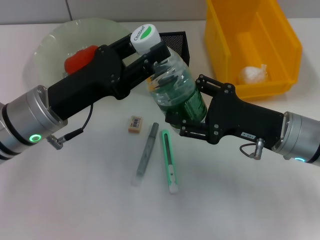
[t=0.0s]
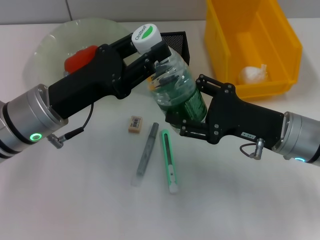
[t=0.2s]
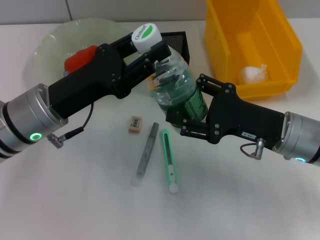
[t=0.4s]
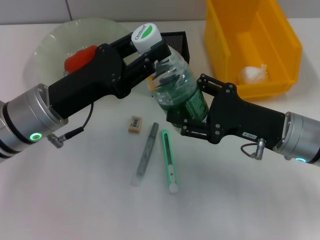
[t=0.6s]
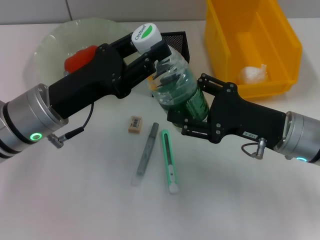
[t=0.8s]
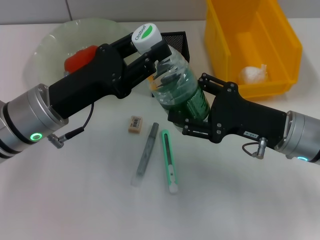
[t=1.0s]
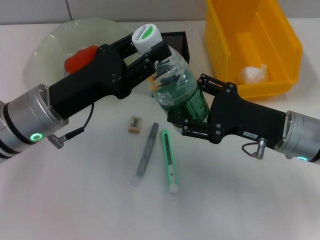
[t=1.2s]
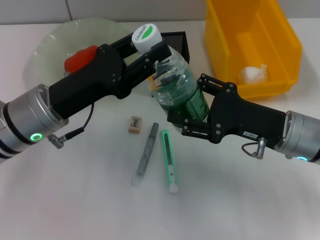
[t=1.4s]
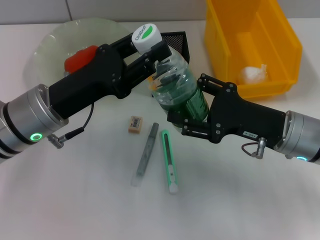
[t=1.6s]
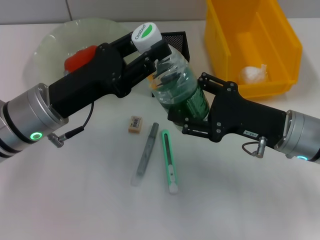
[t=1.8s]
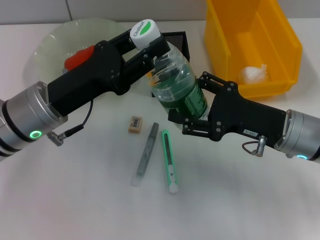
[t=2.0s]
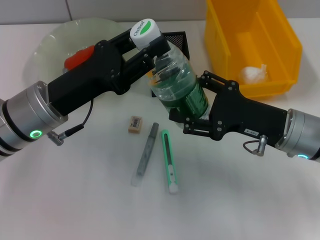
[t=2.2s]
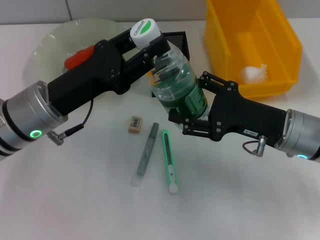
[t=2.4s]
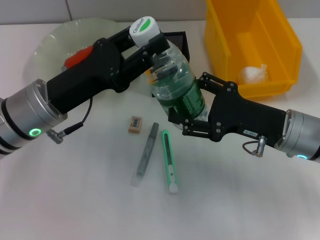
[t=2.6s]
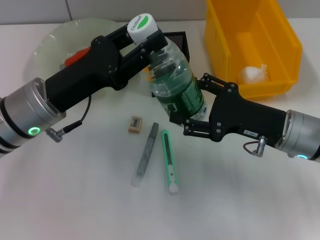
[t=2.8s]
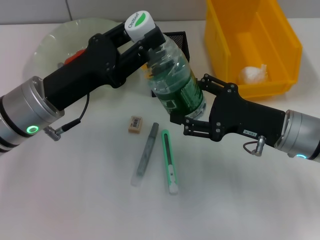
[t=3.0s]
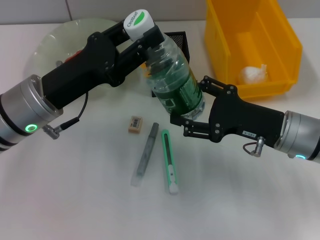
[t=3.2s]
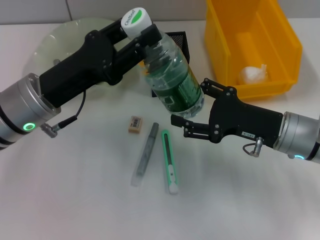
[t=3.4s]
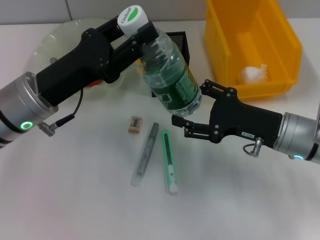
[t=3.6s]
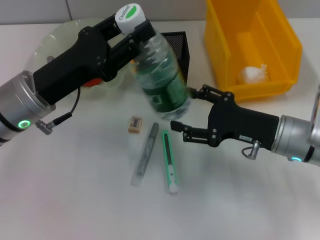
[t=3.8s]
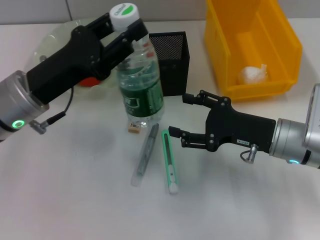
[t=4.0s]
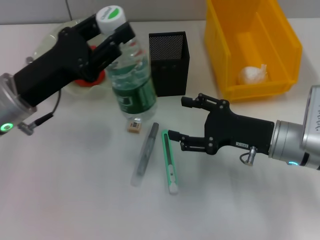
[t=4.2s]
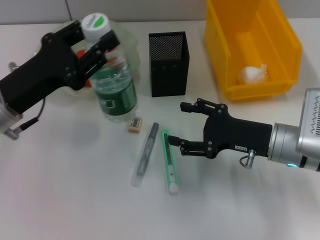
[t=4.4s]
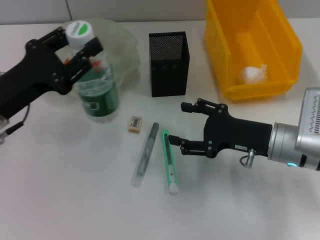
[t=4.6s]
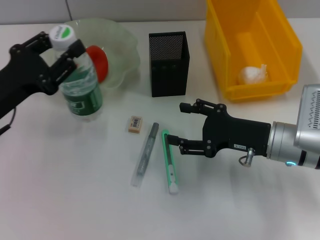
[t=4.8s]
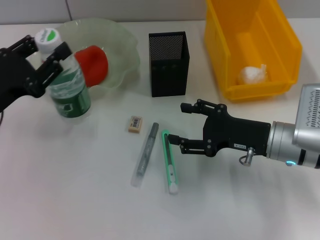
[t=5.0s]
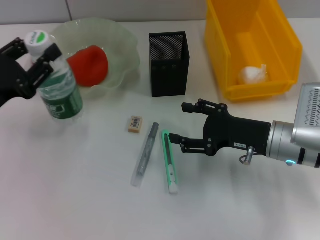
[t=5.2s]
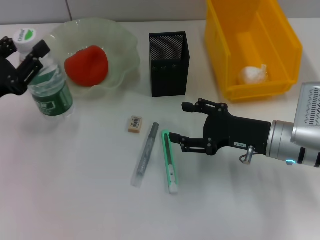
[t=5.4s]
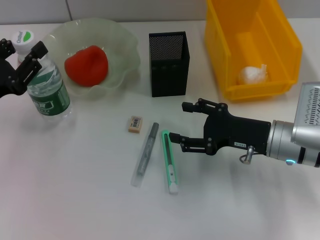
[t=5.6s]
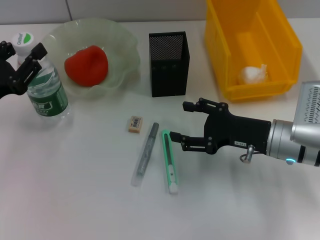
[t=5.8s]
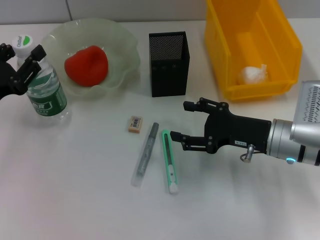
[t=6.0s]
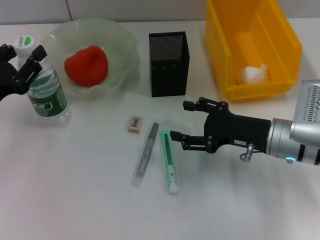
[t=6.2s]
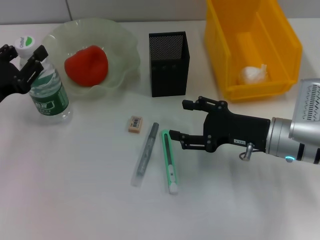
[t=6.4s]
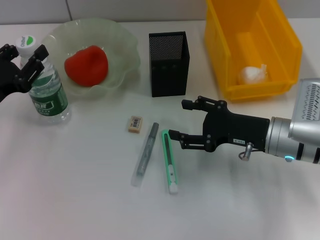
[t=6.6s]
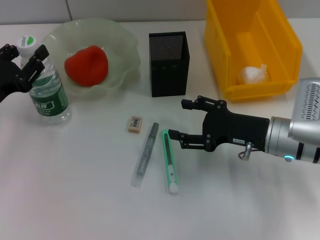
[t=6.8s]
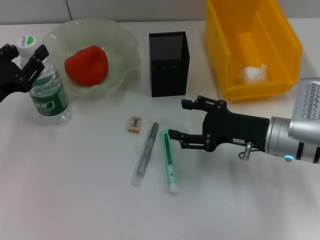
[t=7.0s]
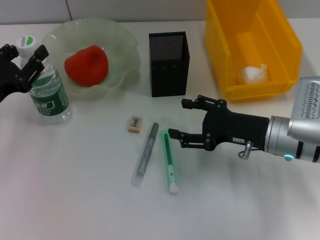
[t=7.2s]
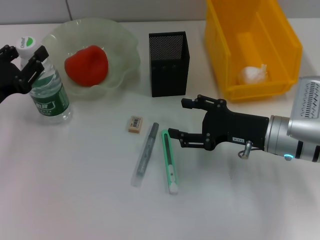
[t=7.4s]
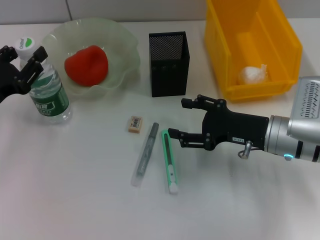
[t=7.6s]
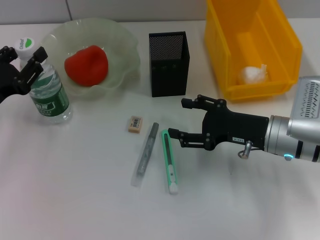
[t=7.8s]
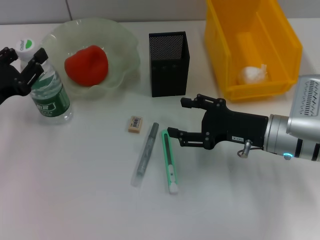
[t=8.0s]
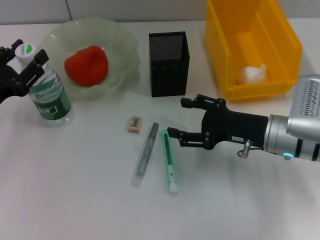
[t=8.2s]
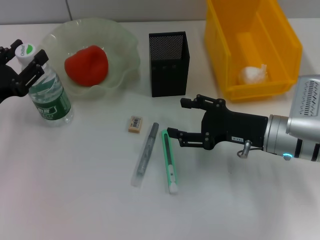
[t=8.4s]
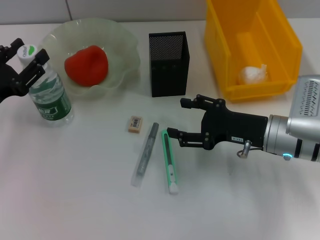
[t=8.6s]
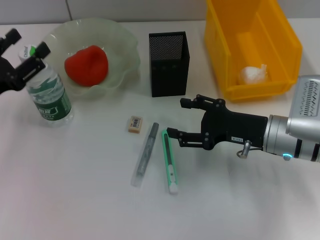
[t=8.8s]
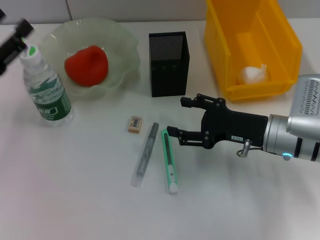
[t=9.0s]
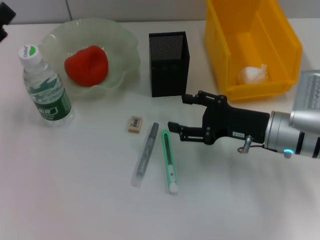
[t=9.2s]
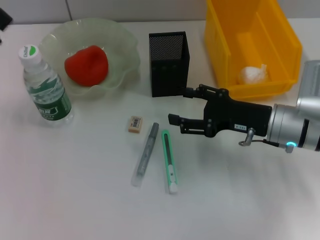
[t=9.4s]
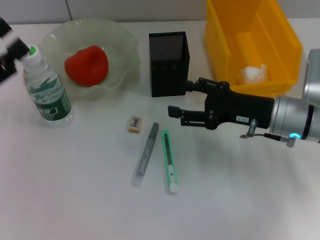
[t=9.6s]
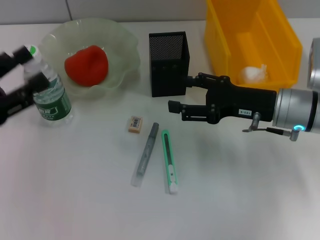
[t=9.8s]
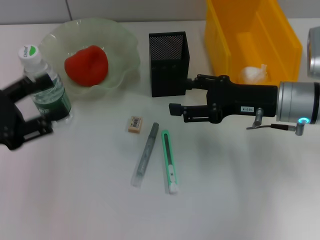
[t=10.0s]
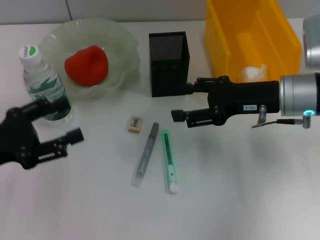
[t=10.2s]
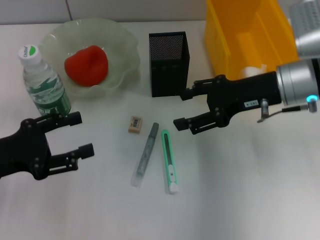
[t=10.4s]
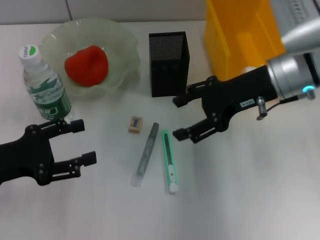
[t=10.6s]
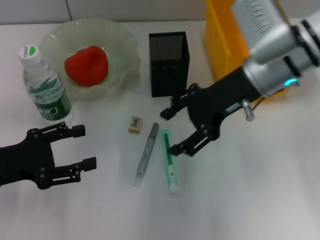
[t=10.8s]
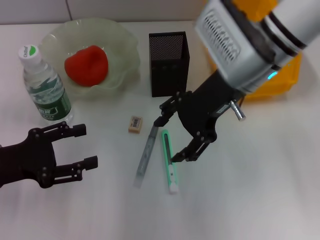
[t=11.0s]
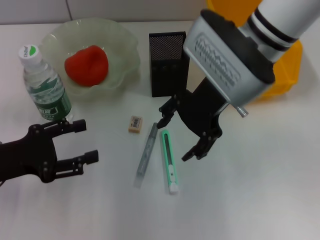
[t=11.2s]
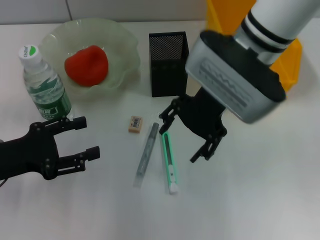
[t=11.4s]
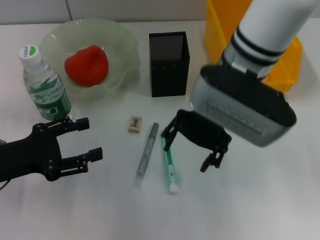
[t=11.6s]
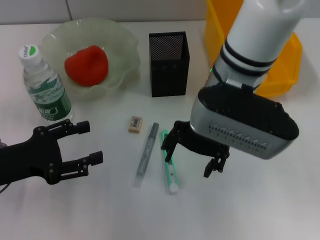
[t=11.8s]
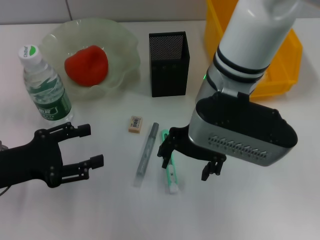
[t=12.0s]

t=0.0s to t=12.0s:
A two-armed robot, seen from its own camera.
Step, t=0.0s to t=3.2s: Pass the water bottle from the right hand to the left hand.
Step, t=3.4s to t=8.6s: Place the water bottle on the table with the left hand.
t=0.0s to t=3.0s: The two grippers keep their place.
t=3.0s to t=4.4s: The left gripper heads to the left, covering approximately 5 cm.
t=4.4s to t=6.0s: The left gripper travels to the left by roughly 5 cm.
t=6.0s to t=7.6s: Both grippers stay put.
t=7.6s to t=9.0s: The left gripper opens up.
t=9.0s to t=10.4s: The right gripper is displaced upward by approximately 10 cm.
t=10.4s to t=12.0s: The right gripper shifts approximately 15 cm to the left.

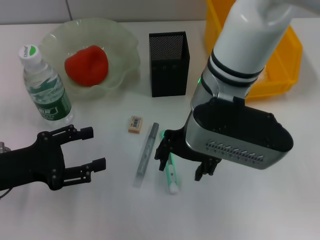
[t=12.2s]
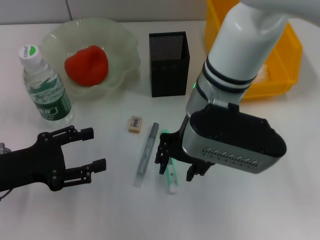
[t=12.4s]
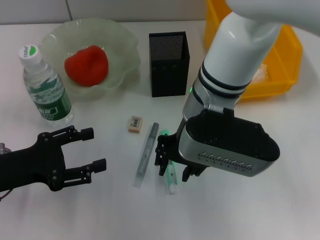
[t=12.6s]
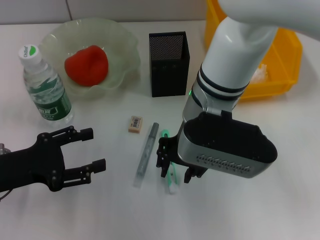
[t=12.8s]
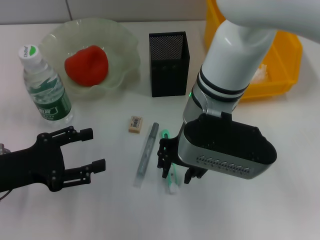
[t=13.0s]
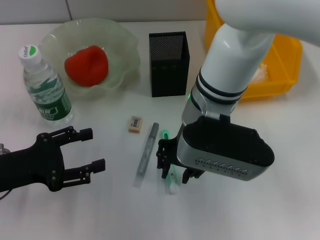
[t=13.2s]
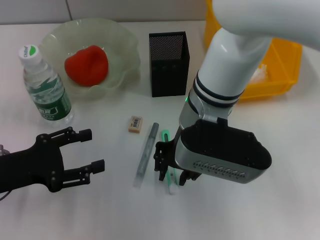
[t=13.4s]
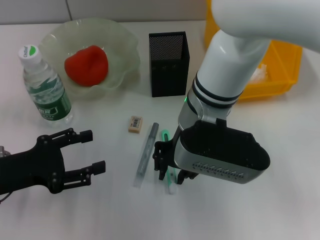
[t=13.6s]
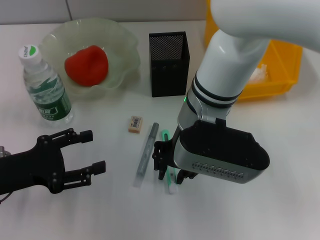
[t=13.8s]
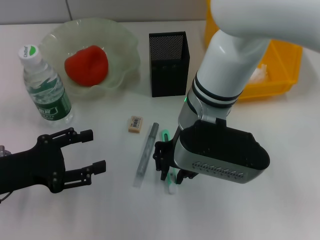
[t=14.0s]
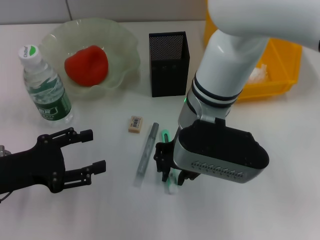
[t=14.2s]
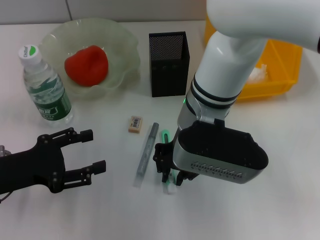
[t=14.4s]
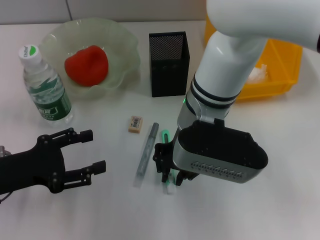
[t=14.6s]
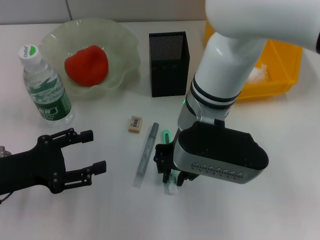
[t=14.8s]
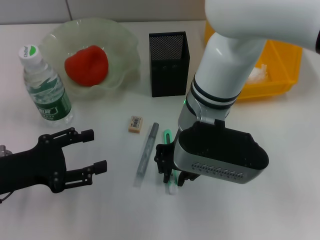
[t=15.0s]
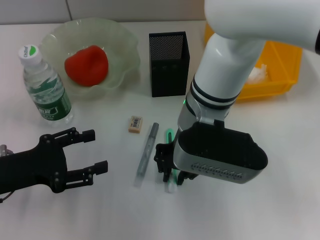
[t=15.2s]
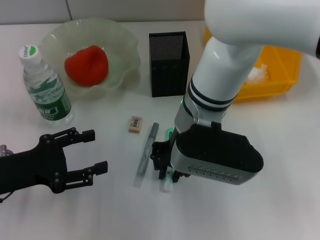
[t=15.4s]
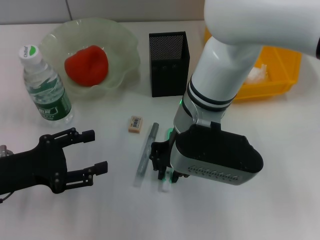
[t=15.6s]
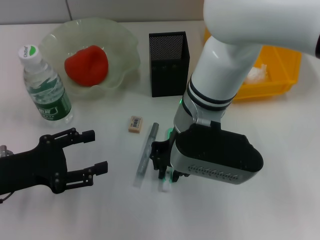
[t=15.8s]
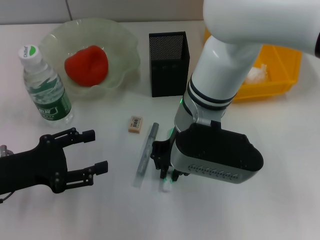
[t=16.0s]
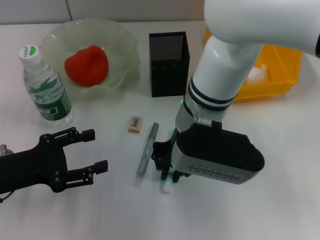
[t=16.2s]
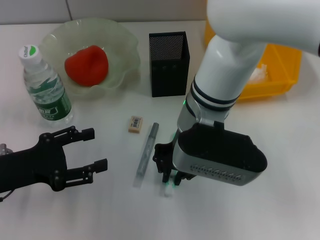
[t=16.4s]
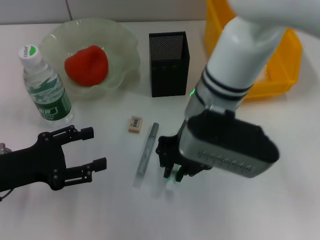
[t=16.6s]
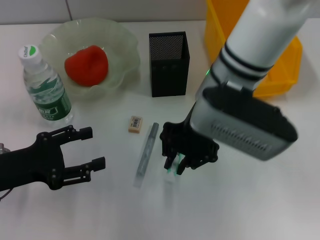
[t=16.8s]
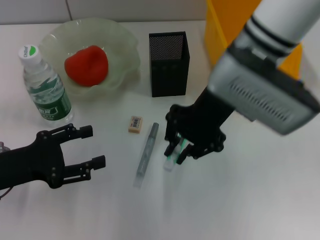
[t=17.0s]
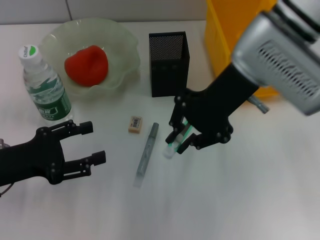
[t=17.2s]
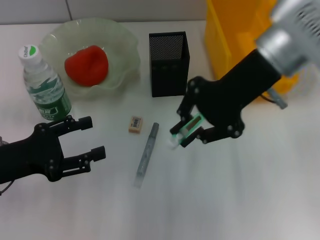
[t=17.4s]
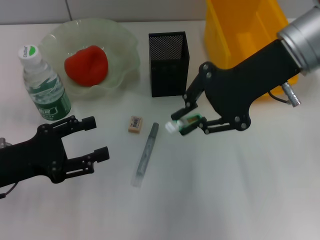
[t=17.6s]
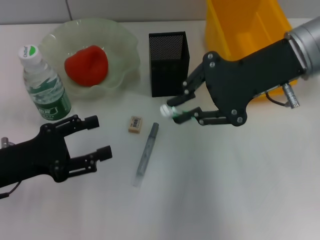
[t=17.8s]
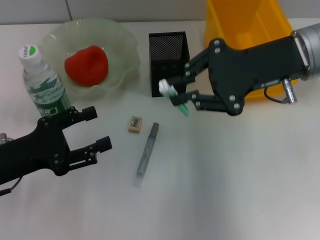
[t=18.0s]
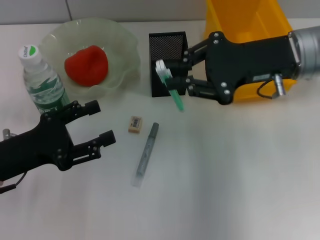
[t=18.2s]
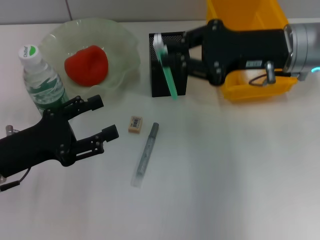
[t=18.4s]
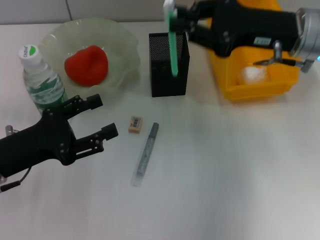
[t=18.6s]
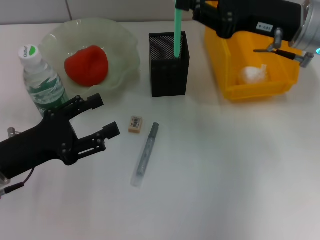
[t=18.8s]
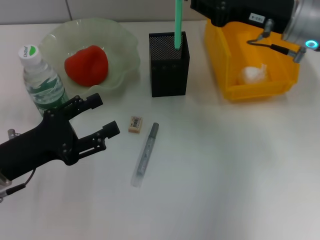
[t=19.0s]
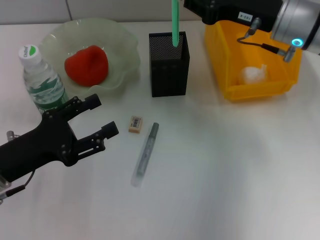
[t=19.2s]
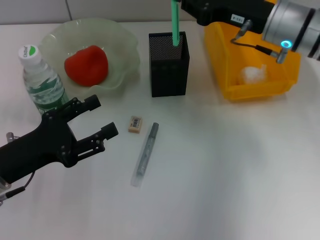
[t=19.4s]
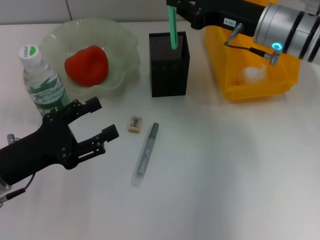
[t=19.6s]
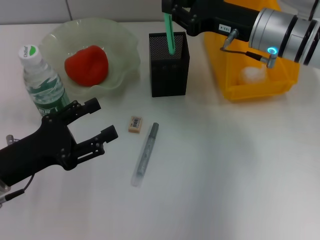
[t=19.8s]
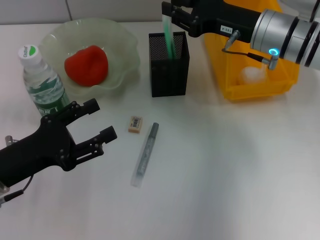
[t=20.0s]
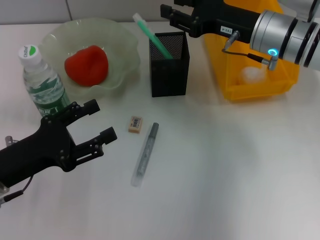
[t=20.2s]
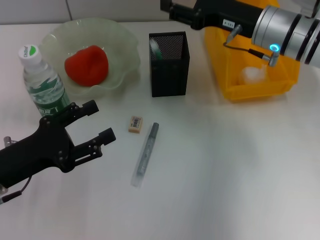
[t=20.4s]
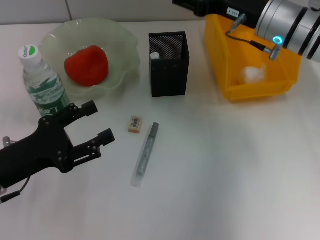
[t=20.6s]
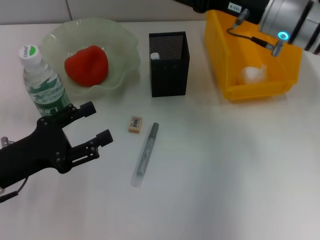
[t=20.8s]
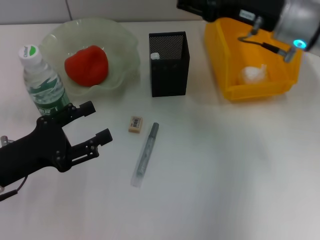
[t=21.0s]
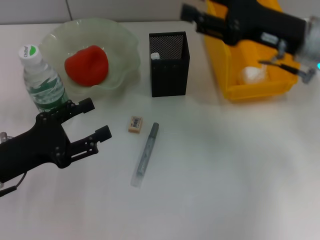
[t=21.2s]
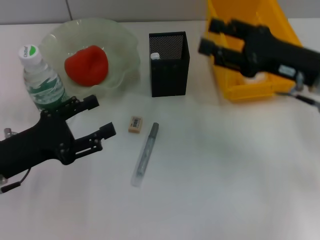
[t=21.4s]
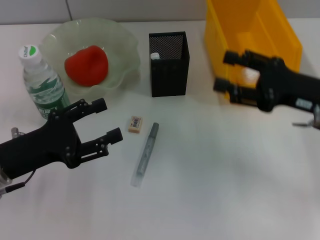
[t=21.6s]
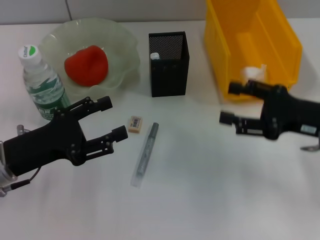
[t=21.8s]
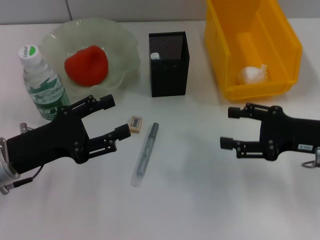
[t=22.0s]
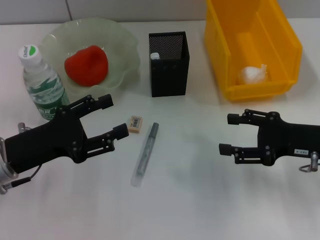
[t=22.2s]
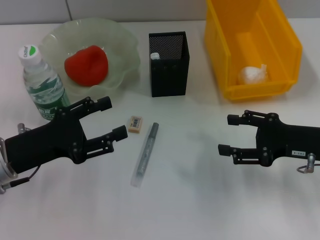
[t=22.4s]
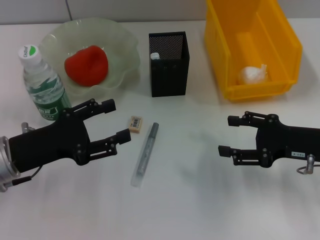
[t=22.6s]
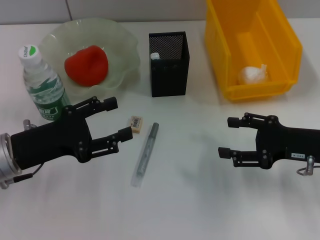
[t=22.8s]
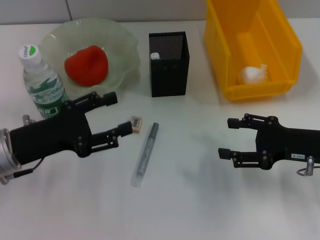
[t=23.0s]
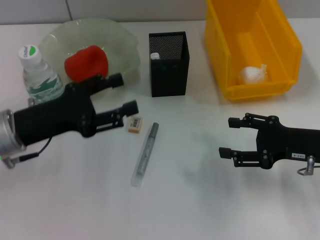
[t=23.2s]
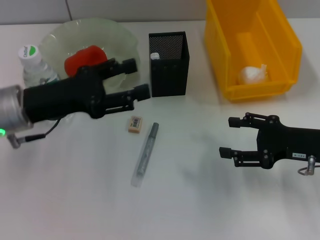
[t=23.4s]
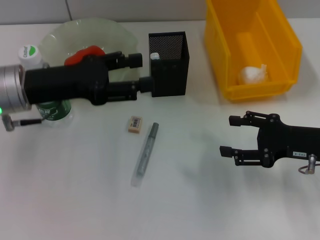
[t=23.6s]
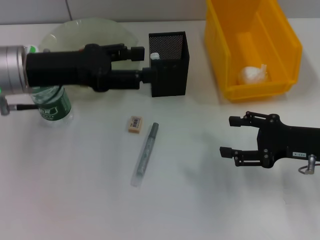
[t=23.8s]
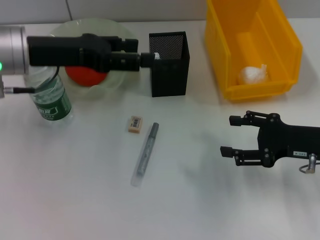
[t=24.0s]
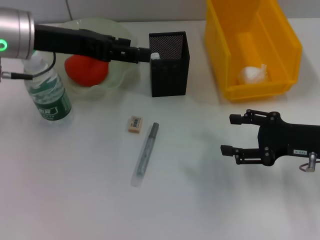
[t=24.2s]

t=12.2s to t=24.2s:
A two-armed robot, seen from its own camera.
Step, t=12.2s to t=16.2s: Grab the blue utility knife with the right hand.
Step, t=16.6s to t=20.4s: Place the blue utility knife into the pen holder with the right hand.
t=12.2s to t=13.8s: The right gripper closes.
t=13.8s to t=15.2s: The two grippers keep their place.
t=15.2s to t=16.6s: The grippers stay close to where they were, moving slightly.
t=16.6s to t=18.2s: The right gripper shifts about 15 cm to the right.
t=18.2s to t=19.8s: The right gripper is displaced forward by about 5 cm.
t=19.8s to t=21.2s: The right gripper shifts by some 5 cm, and opens up.
t=21.2s to t=22.6s: The right gripper goes some 15 cm downward, backward and to the right.
t=22.6s to t=24.2s: The left gripper shifts about 20 cm upward and forward.
